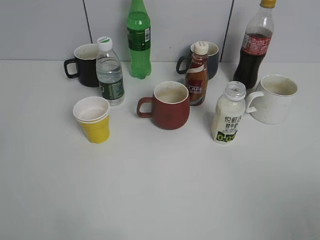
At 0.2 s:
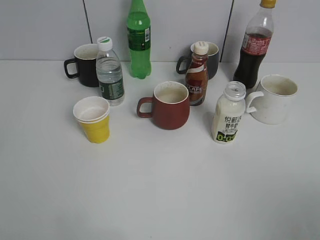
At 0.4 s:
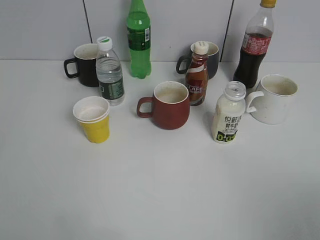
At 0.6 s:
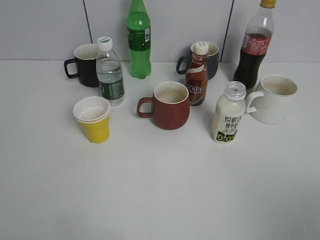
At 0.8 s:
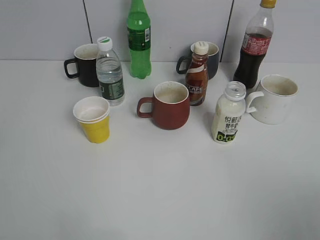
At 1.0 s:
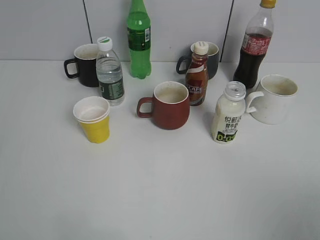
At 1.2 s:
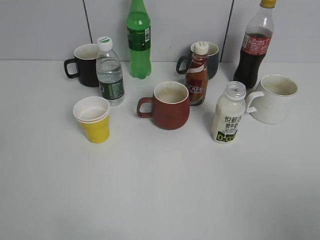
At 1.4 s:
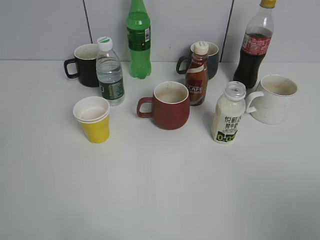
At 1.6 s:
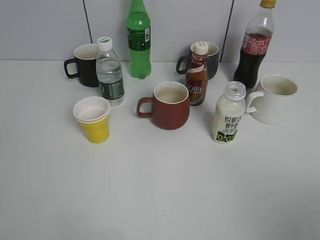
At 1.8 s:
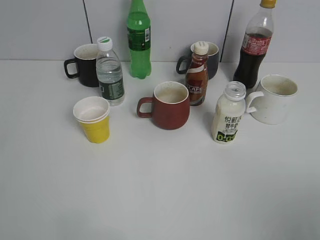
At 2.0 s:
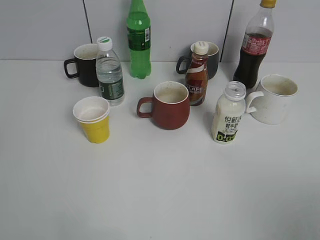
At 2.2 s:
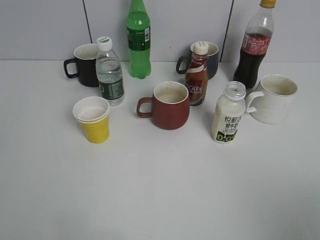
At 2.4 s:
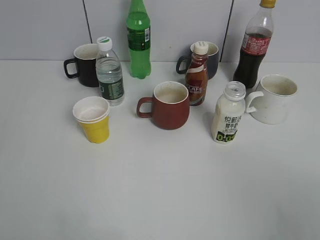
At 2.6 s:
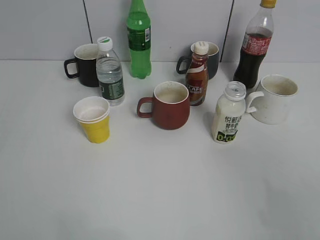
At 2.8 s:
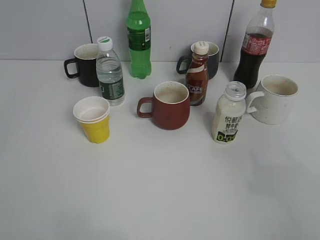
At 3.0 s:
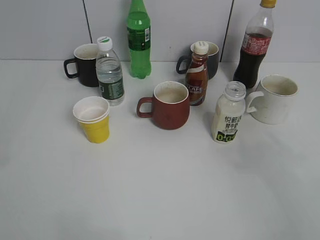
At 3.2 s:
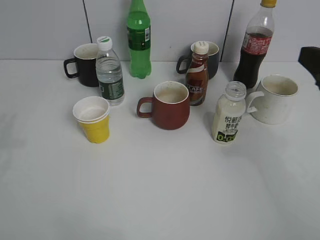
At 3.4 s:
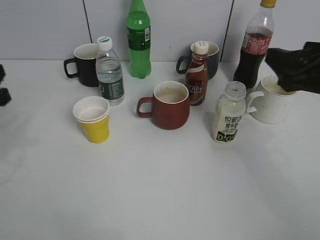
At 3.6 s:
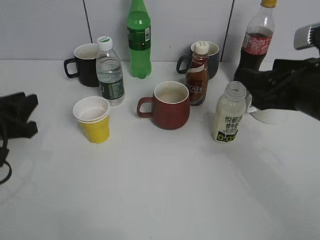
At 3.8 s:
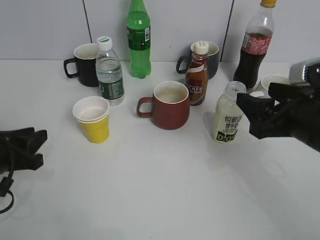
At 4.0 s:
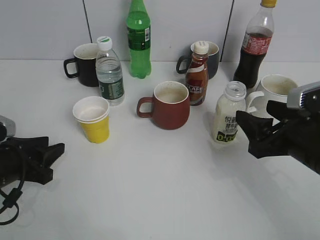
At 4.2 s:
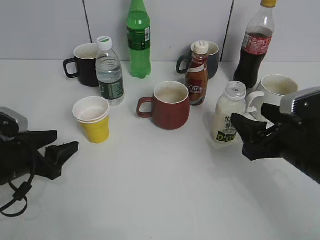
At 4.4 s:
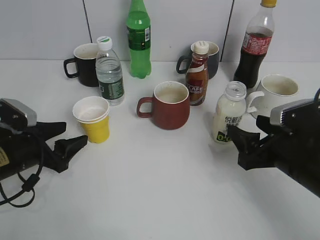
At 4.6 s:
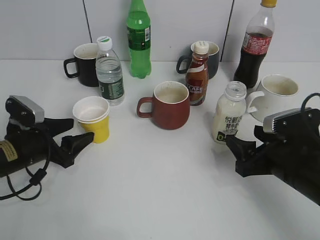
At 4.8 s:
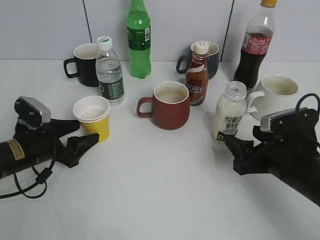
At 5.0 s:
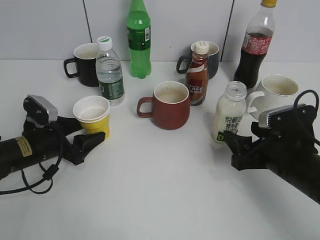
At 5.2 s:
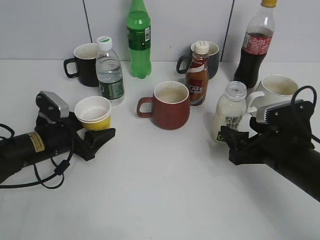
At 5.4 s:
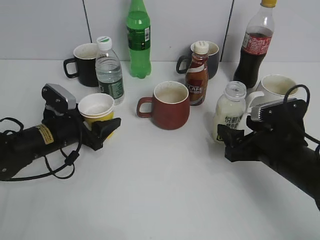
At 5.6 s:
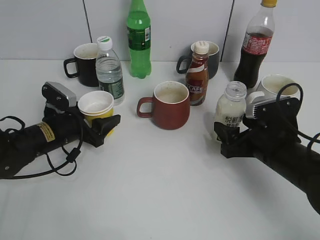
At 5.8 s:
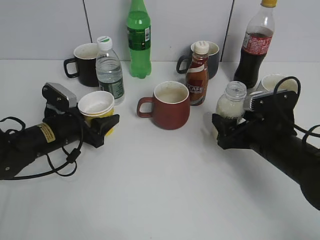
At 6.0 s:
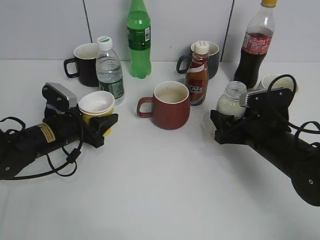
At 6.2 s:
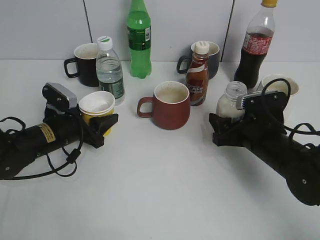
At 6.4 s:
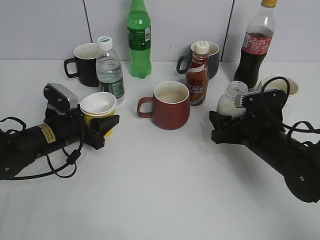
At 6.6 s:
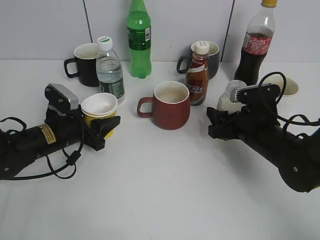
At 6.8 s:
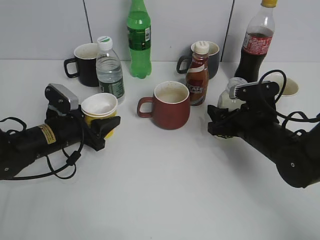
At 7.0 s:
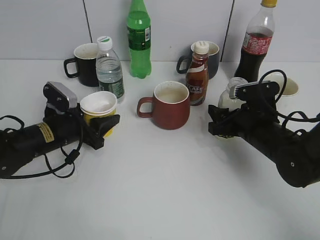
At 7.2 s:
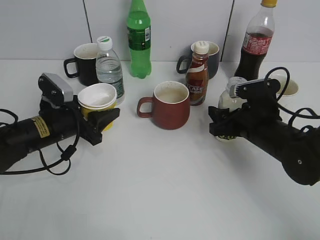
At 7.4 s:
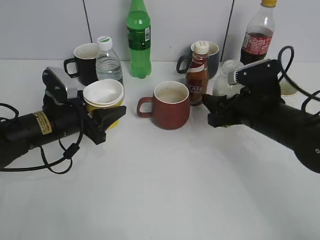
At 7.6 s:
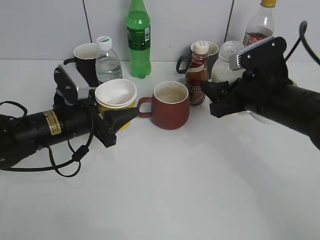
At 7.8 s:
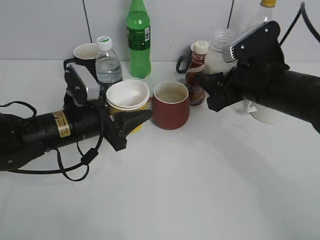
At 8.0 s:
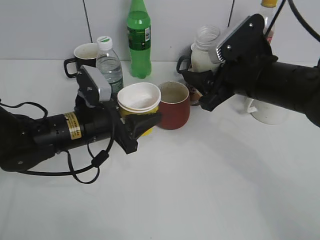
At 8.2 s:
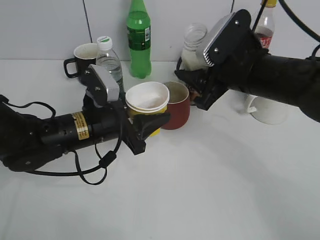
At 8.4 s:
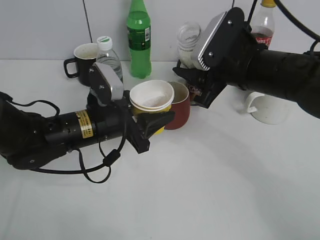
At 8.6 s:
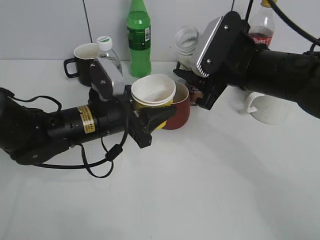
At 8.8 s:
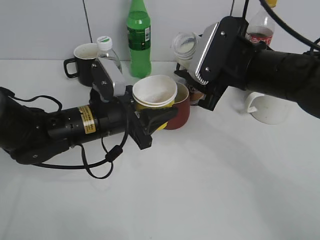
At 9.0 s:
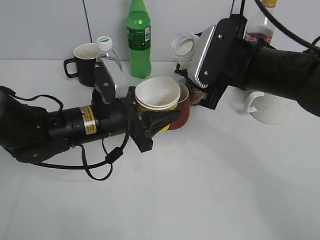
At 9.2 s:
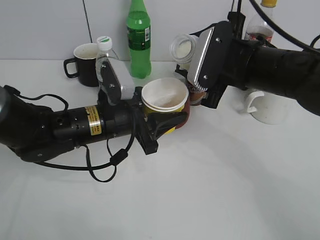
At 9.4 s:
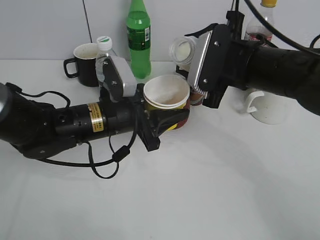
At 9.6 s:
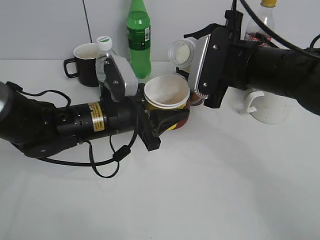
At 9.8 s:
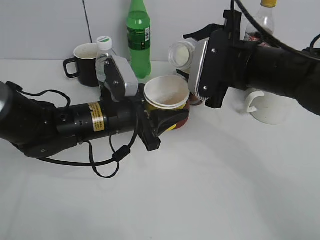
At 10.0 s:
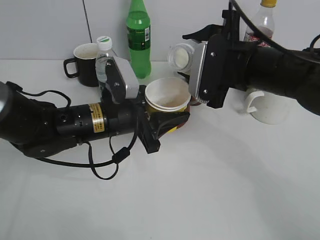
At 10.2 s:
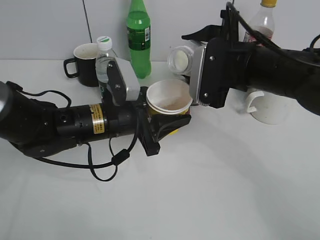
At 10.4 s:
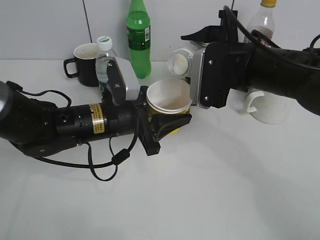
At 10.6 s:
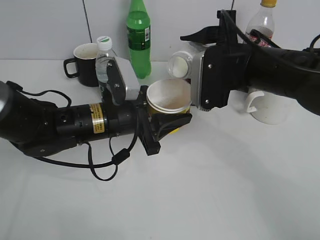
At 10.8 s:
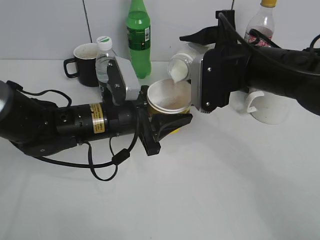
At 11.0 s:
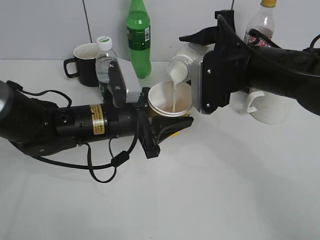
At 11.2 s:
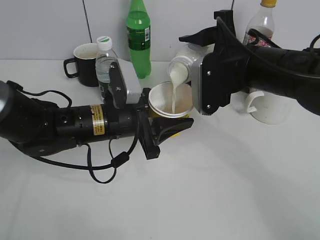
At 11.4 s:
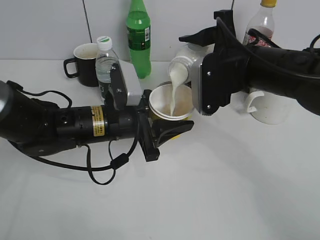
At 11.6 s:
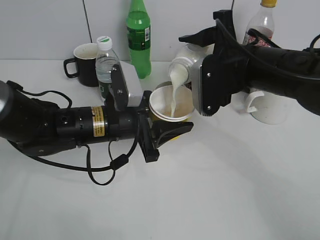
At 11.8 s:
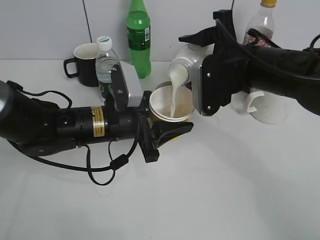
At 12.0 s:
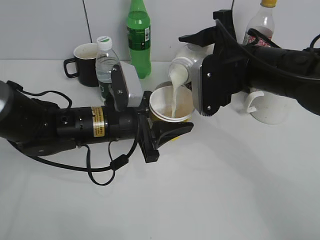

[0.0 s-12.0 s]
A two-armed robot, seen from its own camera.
Step, 3.2 to 5.4 s: Grasp the yellow paper cup with left gripper.
Step, 5.6 to 6.8 s: Grasp the bottle with yuexian Milk with right gripper.
1.6 to 3.0 s: The right gripper is displaced forward by approximately 15 cm.
3.0 to 4.4 s: The right gripper is displaced downward by some 20 cm, while the left gripper is displaced downward and forward by approximately 25 cm, and opens its fingers.
4.4 to 6.0 s: The left gripper goes approximately 10 cm forward and to the right, and closes, while the right gripper heads forward, covering approximately 5 cm, and opens its fingers.
6.0 to 7.6 s: The two grippers go about 5 cm upward. The right gripper closes up.
7.6 to 9.0 s: The left gripper moves to the right, approximately 5 cm. Meanwhile the right gripper travels upward by roughly 5 cm.
10.4 to 12.0 s: There are only small adjustments of the grippers.

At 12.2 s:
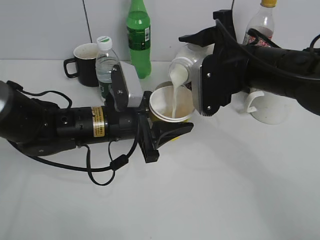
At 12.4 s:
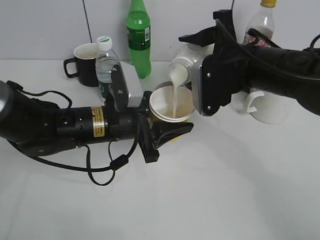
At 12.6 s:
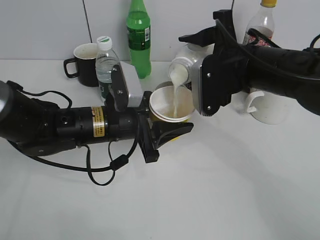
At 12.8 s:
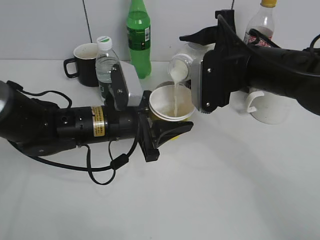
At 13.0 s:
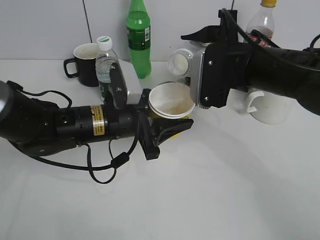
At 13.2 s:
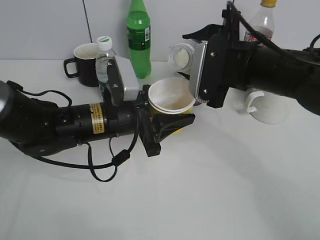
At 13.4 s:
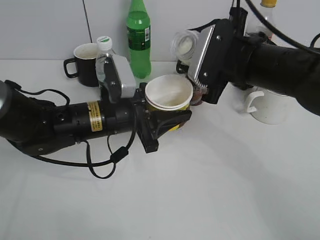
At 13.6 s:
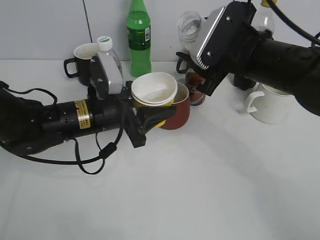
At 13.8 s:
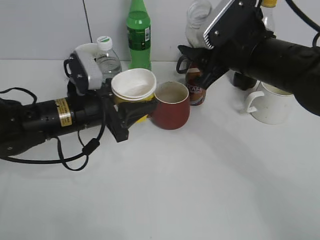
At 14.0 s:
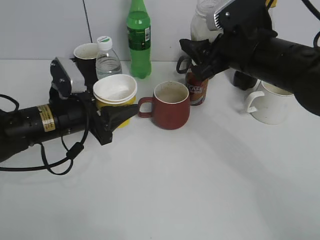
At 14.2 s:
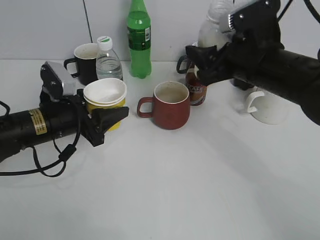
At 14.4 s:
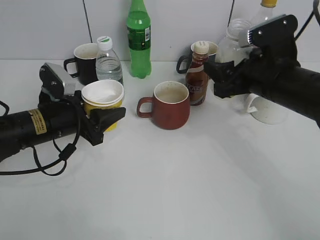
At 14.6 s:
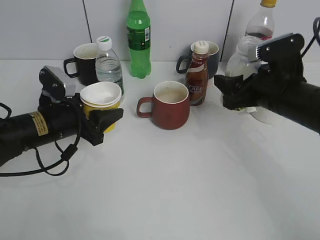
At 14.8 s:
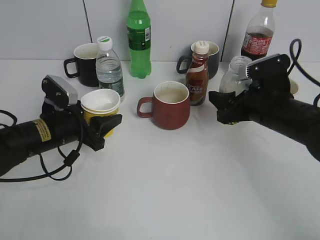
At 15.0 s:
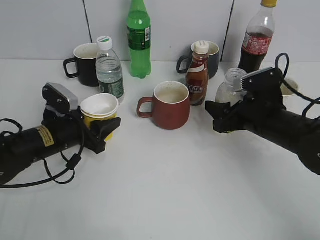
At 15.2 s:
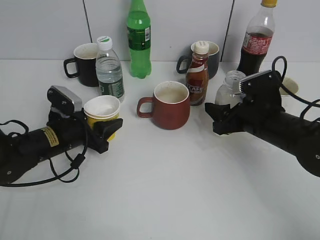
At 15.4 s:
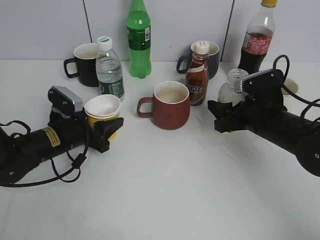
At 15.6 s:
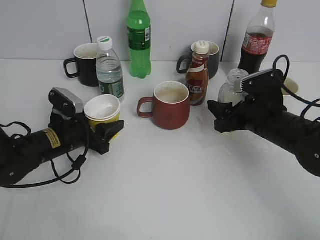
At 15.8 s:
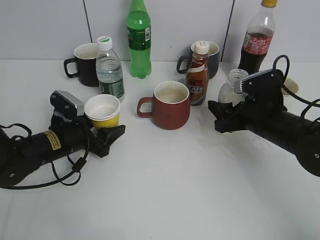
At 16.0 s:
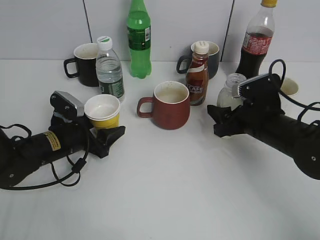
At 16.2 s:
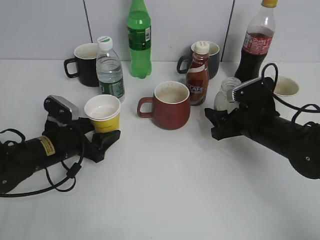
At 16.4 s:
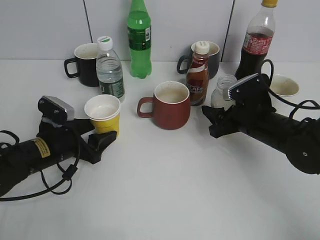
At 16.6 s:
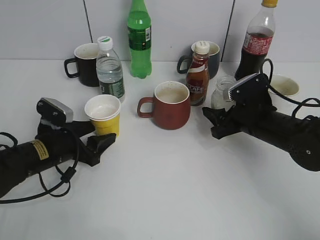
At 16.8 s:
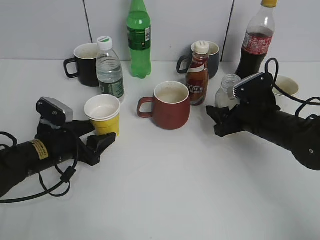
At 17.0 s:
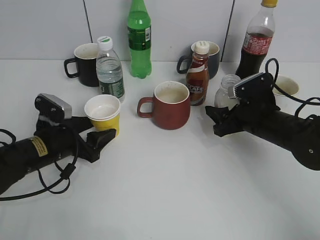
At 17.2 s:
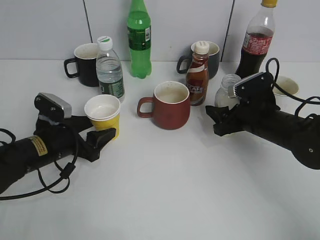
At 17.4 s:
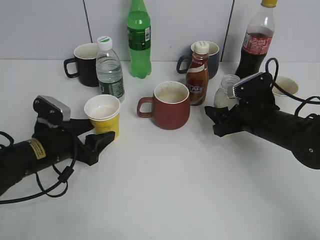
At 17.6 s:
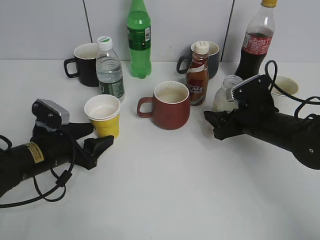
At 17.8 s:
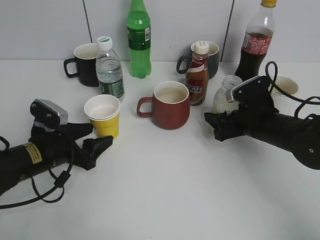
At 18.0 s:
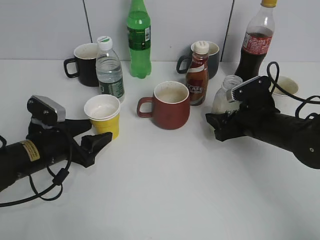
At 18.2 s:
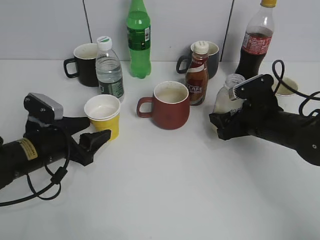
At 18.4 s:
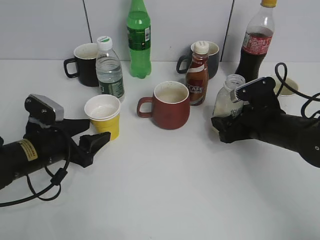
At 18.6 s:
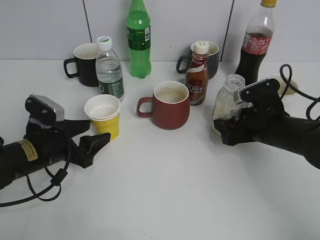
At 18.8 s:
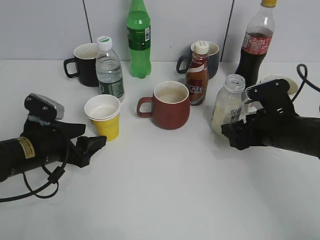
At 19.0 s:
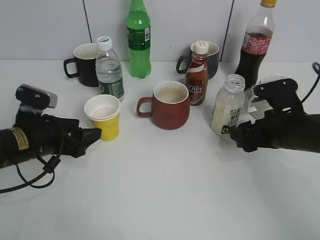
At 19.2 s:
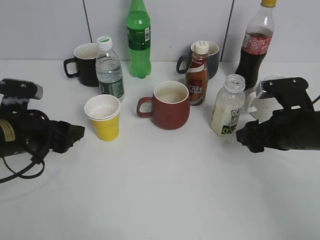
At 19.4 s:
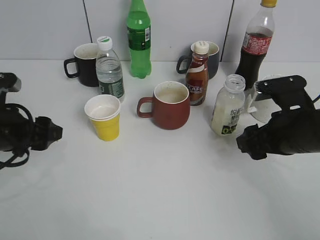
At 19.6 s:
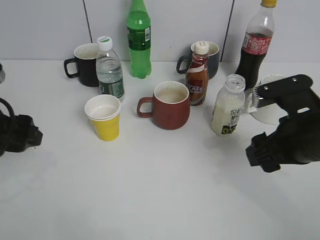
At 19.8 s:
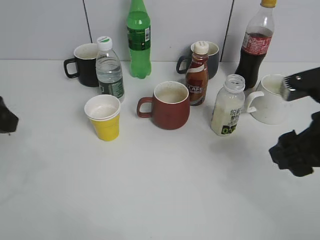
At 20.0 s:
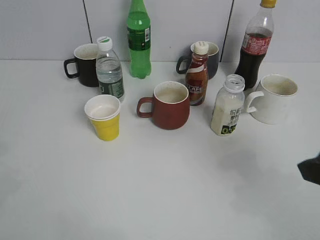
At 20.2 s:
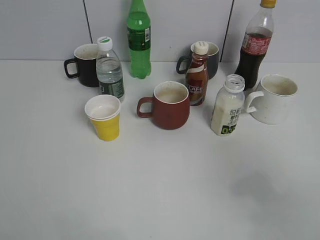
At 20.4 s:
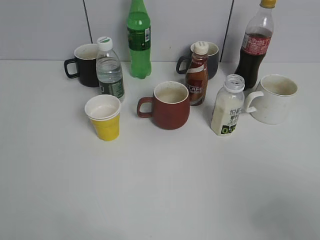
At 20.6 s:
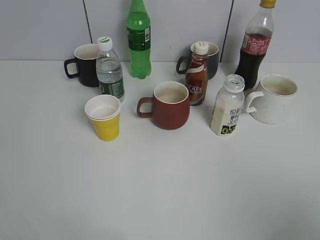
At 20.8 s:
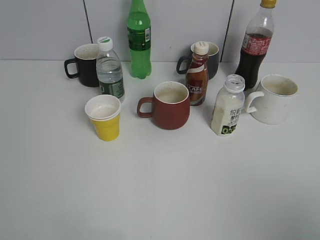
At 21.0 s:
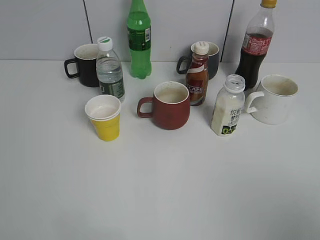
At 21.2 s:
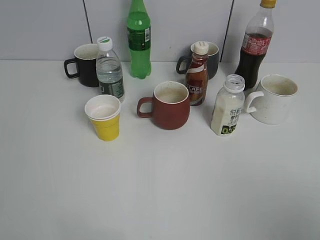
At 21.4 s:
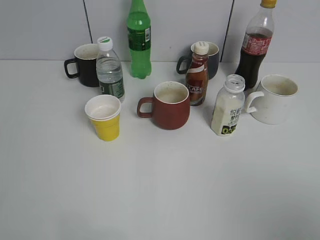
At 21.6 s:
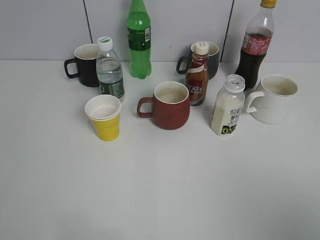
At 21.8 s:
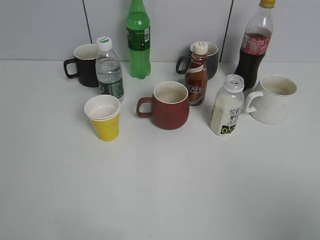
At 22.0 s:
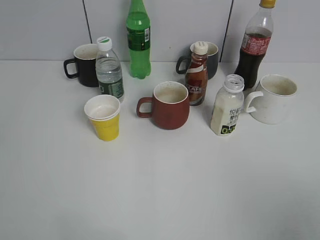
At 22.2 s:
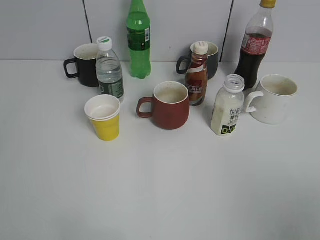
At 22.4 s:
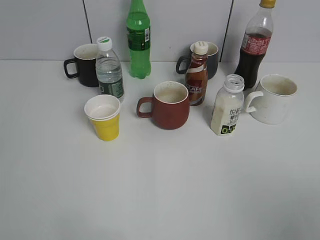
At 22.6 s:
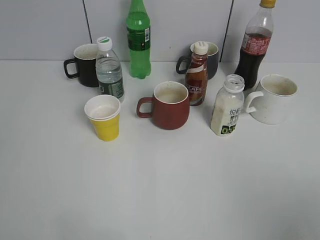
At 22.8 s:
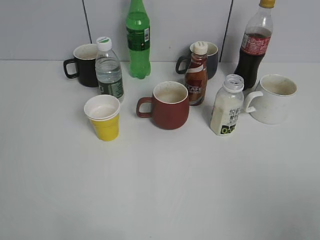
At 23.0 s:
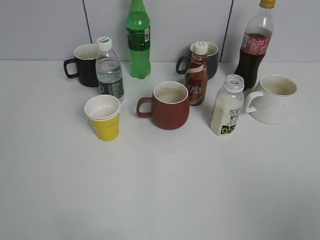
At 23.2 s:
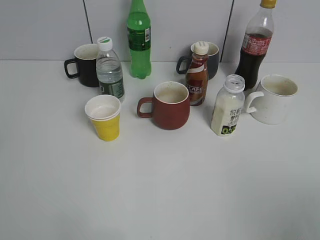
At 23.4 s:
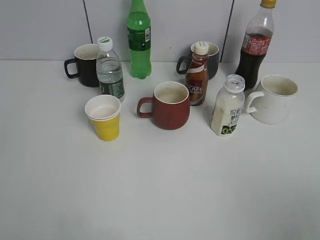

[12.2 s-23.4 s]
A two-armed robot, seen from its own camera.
Step, 13.4 to 19.0 s: Place the yuexian Milk bottle on the table with right gripper.
12.2 to 13.8 s: The left gripper shifts about 5 cm to the left.
13.8 to 15.4 s: The right gripper shifts approximately 15 cm downward and to the right; the left gripper is displaced downward and to the left by some 10 cm.
15.4 to 17.0 s: The left gripper opens.
17.0 to 18.6 s: The right gripper opens its fingers.
18.6 to 20.2 s: The right gripper heads backward and upward, covering some 30 cm, and closes. The left gripper moves upward and backward, roughly 30 cm.
20.2 to 21.8 s: The right gripper goes about 10 cm backward.
